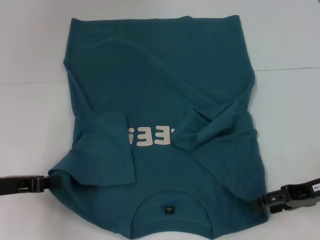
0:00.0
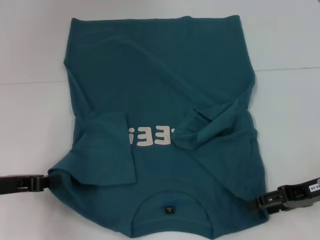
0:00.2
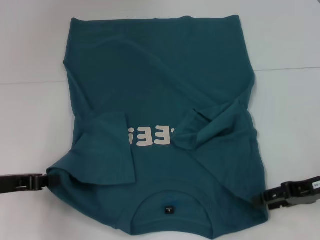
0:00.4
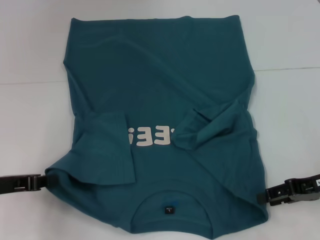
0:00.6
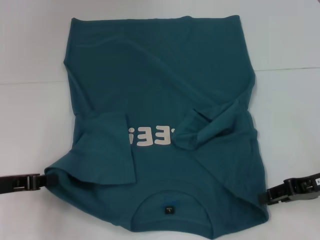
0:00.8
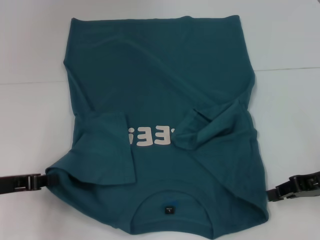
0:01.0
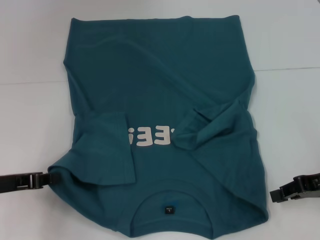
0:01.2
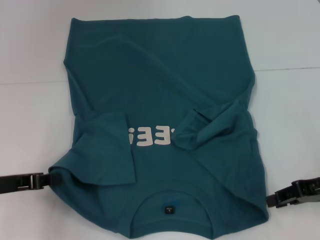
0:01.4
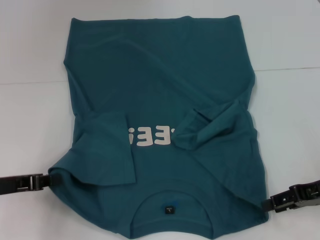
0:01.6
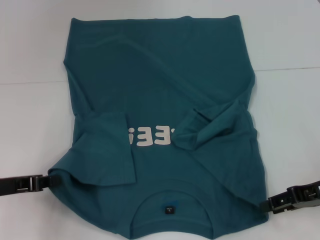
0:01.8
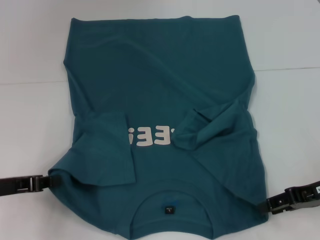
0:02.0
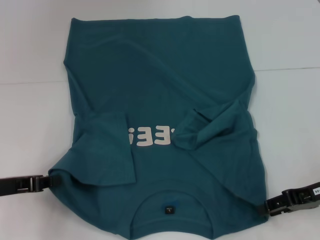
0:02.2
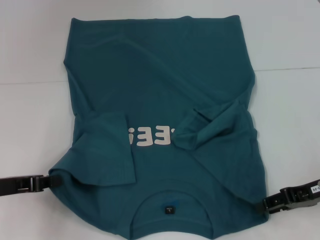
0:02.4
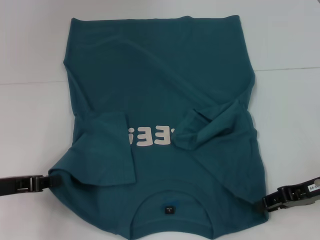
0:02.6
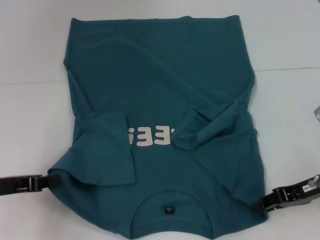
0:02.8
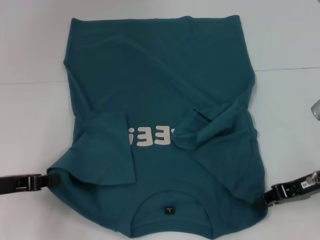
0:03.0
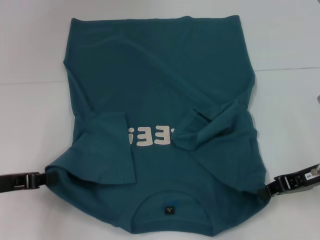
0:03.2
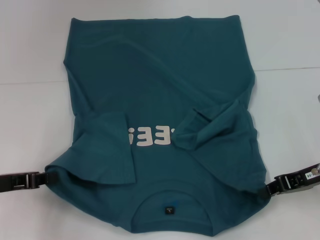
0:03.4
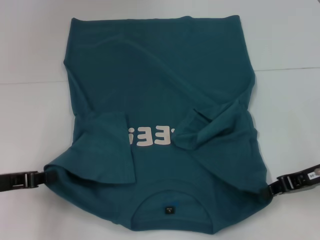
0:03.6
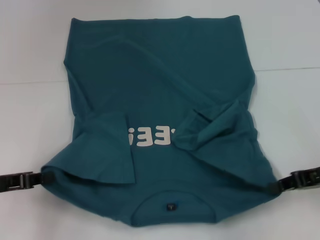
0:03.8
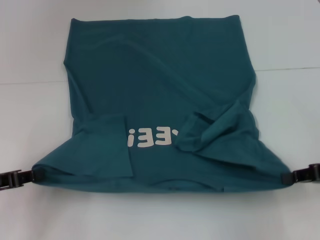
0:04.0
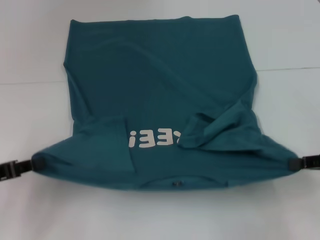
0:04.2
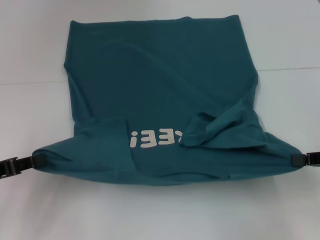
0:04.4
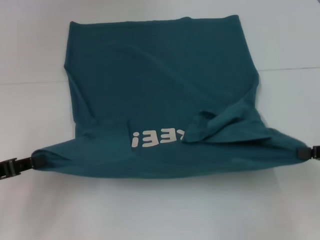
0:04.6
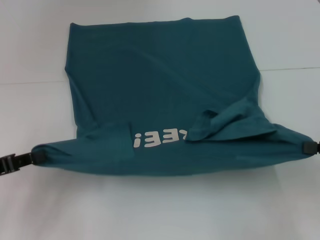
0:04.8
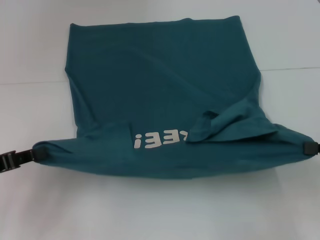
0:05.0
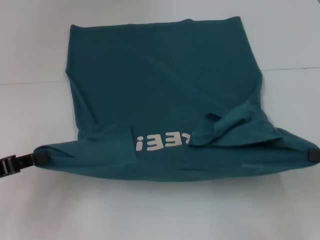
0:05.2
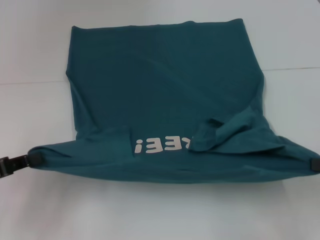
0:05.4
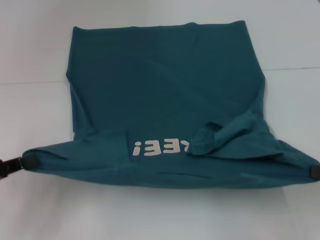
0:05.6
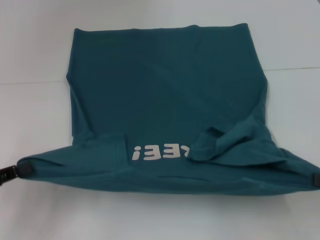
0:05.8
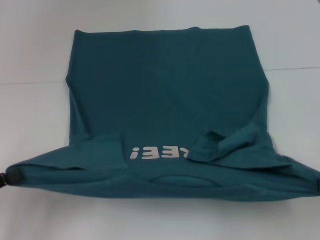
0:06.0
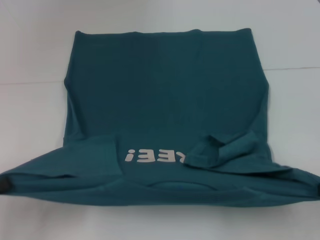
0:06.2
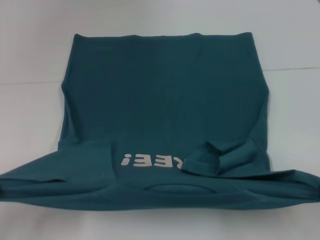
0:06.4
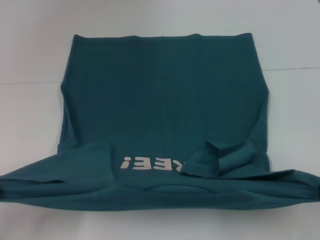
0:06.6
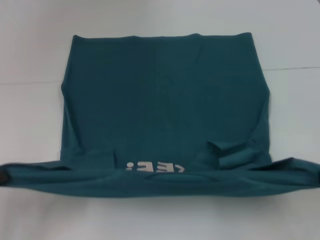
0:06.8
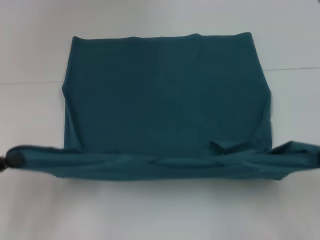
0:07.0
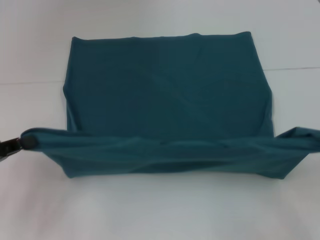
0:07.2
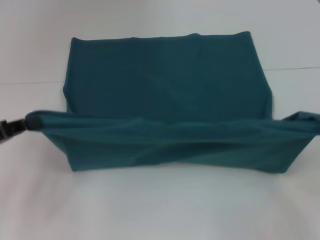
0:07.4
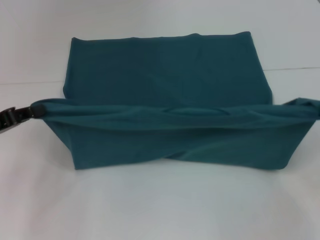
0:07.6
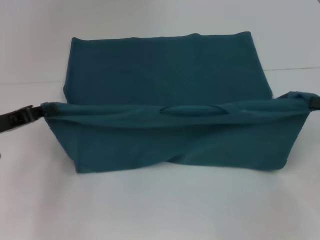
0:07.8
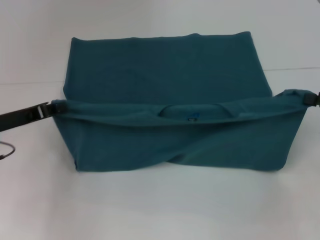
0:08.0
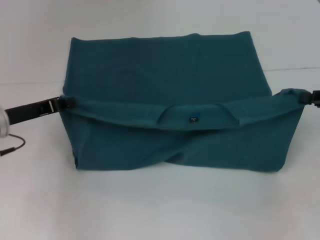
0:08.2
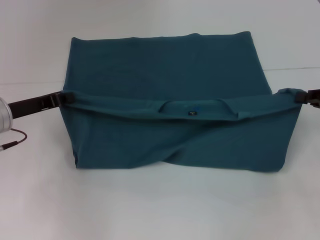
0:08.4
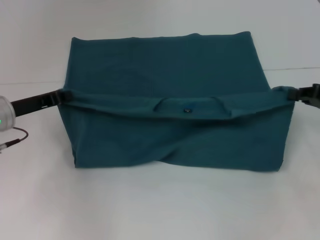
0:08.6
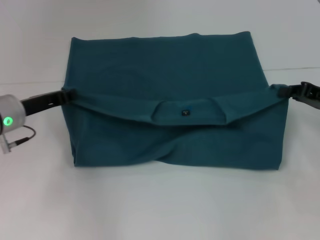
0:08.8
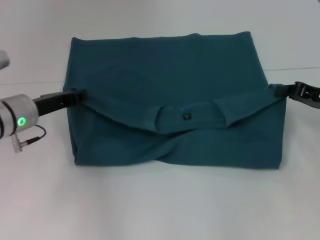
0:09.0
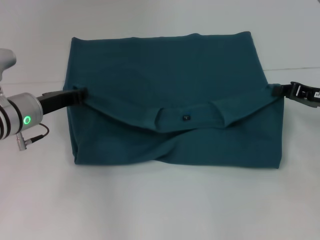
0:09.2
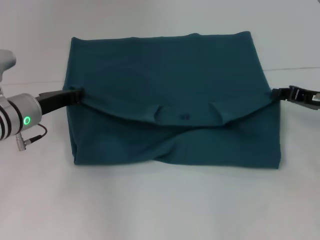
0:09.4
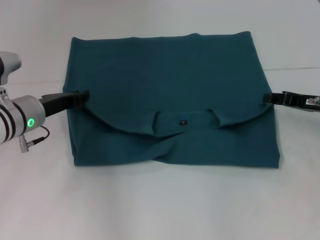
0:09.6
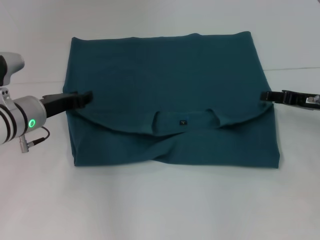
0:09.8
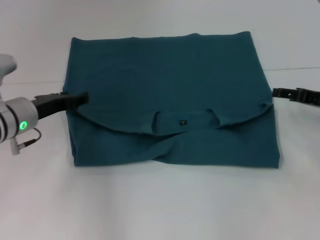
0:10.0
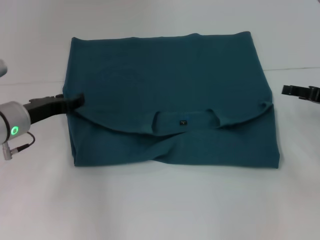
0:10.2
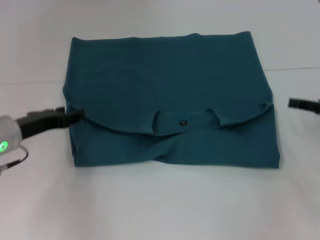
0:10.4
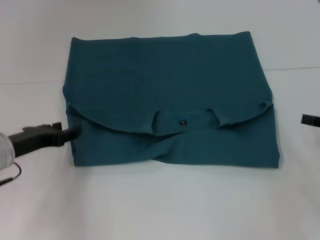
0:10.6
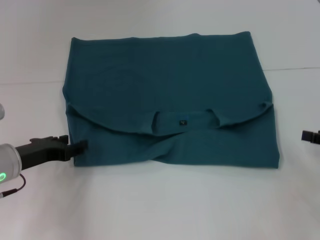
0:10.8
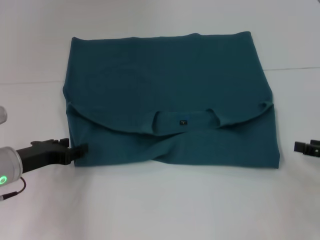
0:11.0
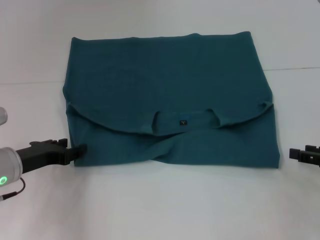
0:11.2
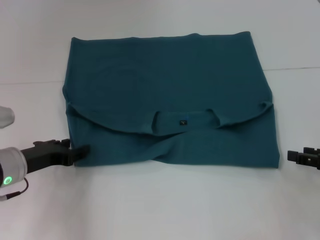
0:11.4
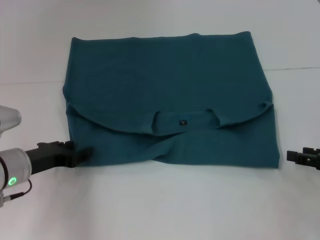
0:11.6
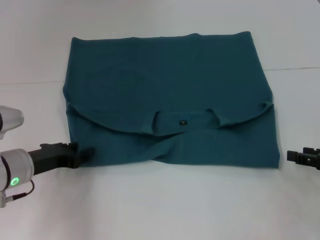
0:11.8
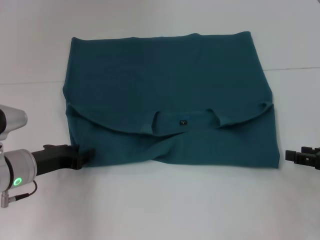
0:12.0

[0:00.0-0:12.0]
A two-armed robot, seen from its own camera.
Step, 0:00.0 to 0:03.6: Grab the bottom right corner with your right hand.
Step, 0:03.8 to 0:09.6: Fold the clothes to the left.
Step, 0:03.8 to 0:09.6: Fold the clothes to the right.
0:00.0 to 0:01.6: The right gripper closes.
0:01.6 to 0:03.0: The grippers stay close to where they were, moving slightly.
0:03.0 to 0:04.4: The right gripper heads to the right, covering about 5 cm, and closes.
0:04.4 to 0:06.0: The two grippers go some 5 cm backward.
0:06.0 to 0:07.6: Both grippers move forward, some 10 cm.
0:07.6 to 0:09.0: The left gripper moves to the right and forward, roughly 10 cm; the right gripper travels forward and to the left by roughly 10 cm.
0:09.0 to 0:10.4: The right gripper opens; the left gripper opens up.
0:10.4 to 0:12.0: The right gripper moves backward, about 5 cm.

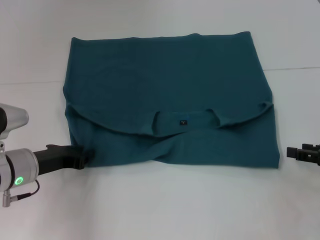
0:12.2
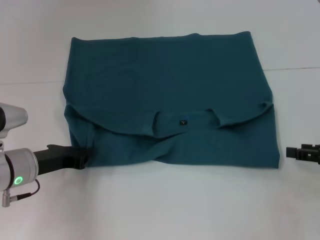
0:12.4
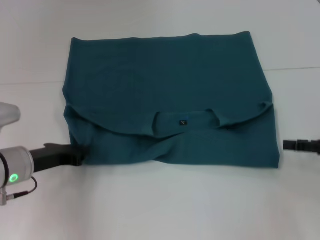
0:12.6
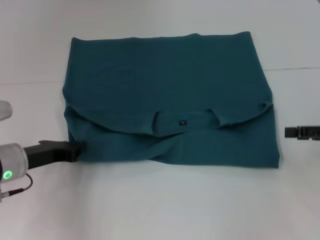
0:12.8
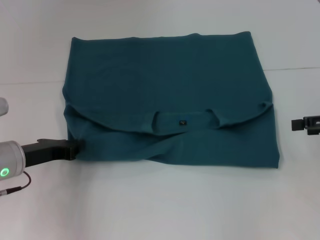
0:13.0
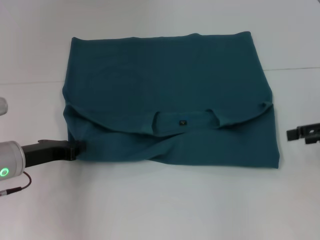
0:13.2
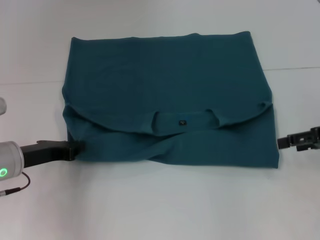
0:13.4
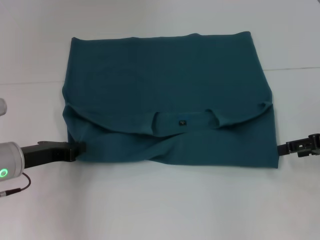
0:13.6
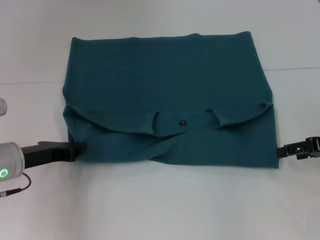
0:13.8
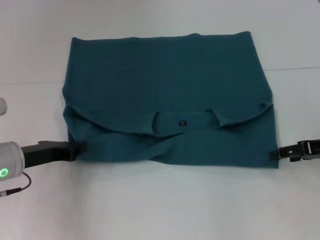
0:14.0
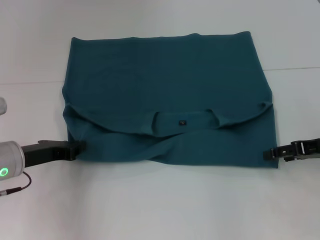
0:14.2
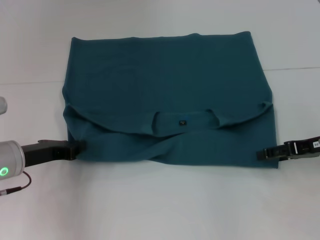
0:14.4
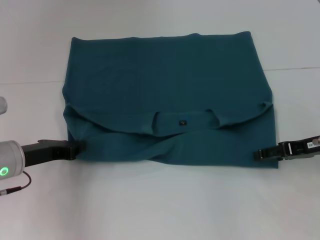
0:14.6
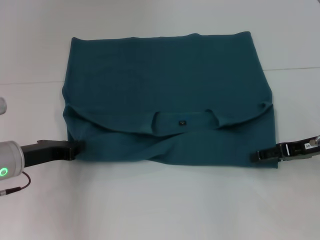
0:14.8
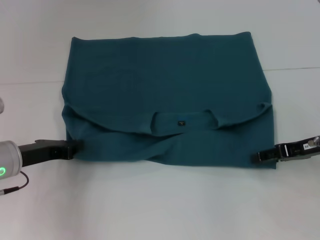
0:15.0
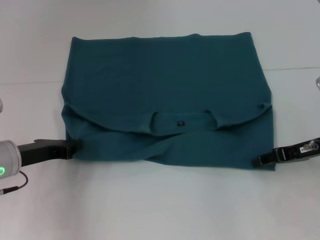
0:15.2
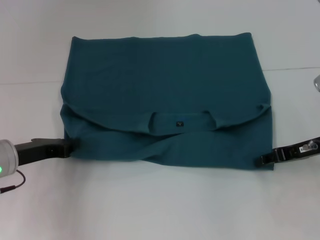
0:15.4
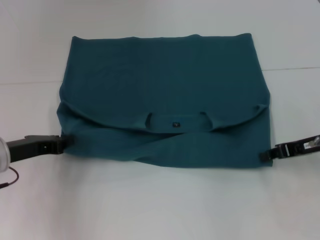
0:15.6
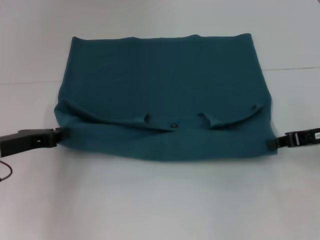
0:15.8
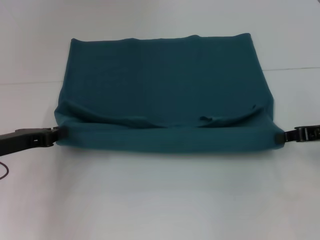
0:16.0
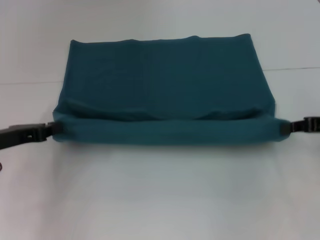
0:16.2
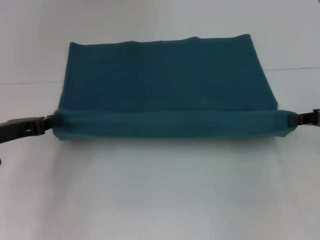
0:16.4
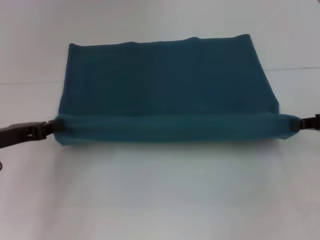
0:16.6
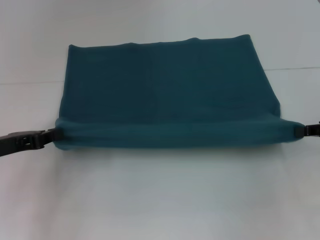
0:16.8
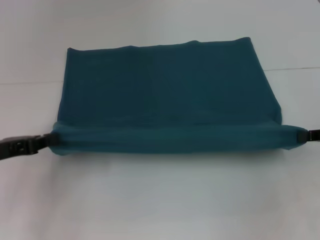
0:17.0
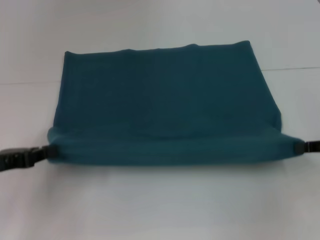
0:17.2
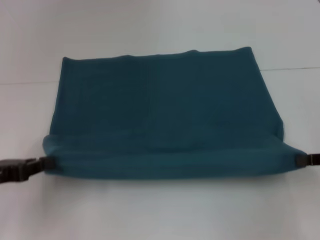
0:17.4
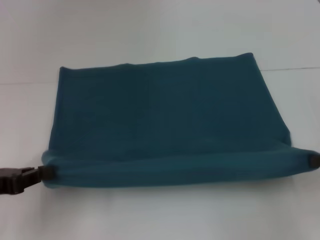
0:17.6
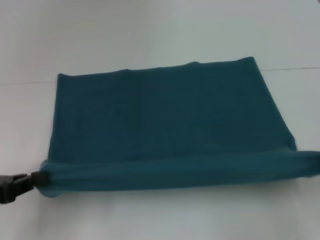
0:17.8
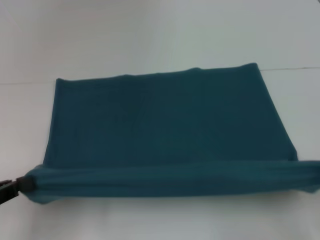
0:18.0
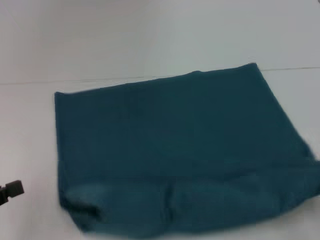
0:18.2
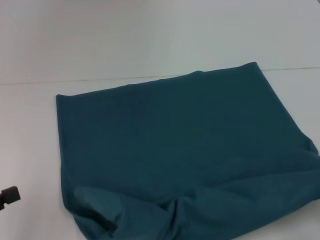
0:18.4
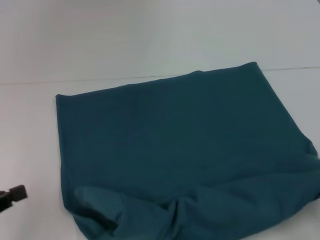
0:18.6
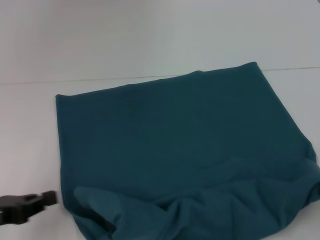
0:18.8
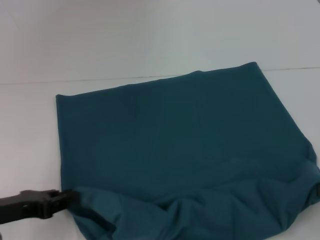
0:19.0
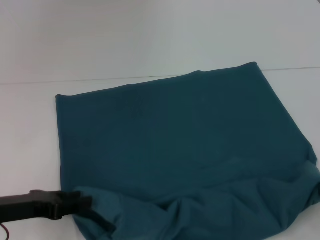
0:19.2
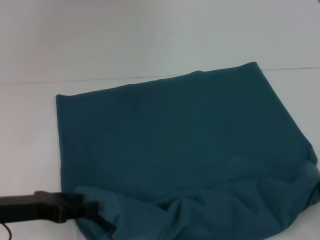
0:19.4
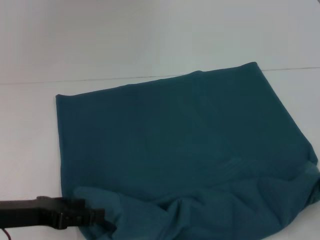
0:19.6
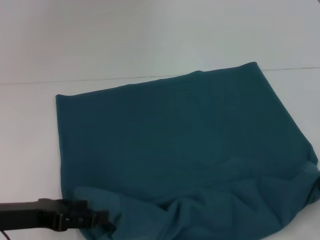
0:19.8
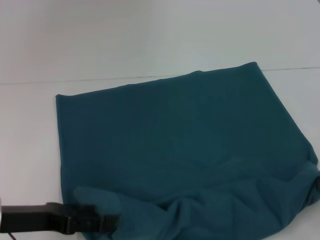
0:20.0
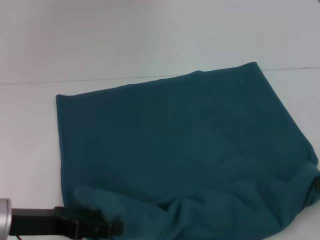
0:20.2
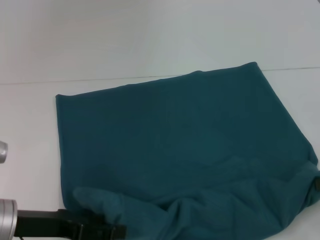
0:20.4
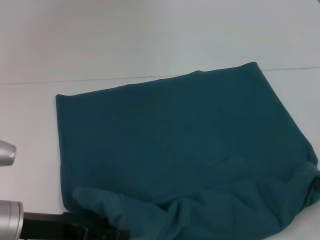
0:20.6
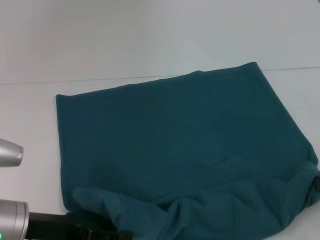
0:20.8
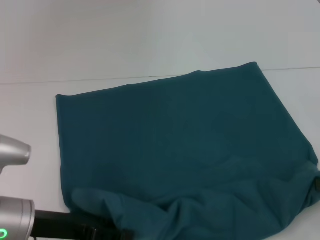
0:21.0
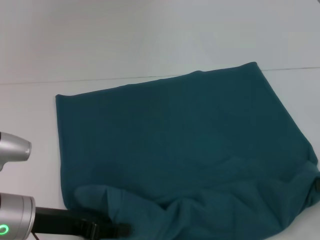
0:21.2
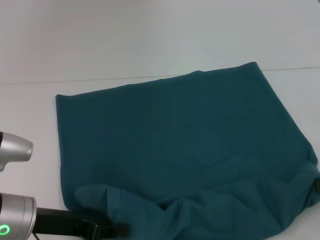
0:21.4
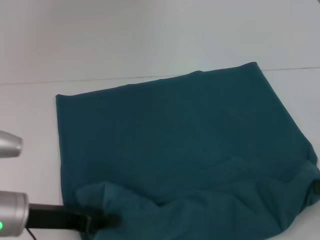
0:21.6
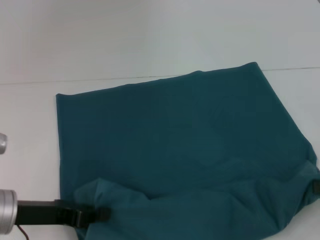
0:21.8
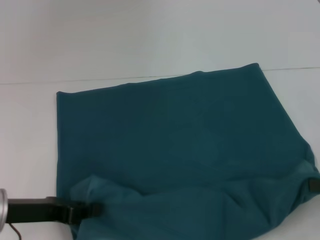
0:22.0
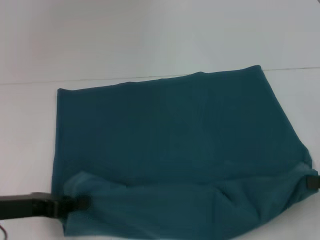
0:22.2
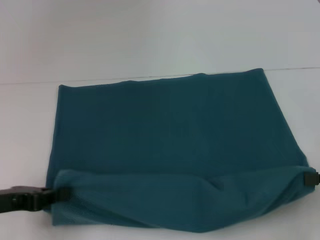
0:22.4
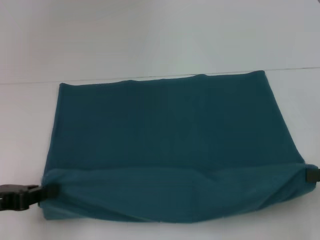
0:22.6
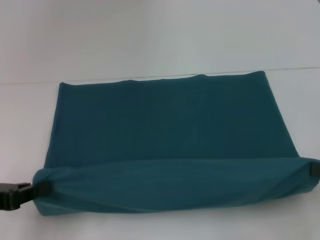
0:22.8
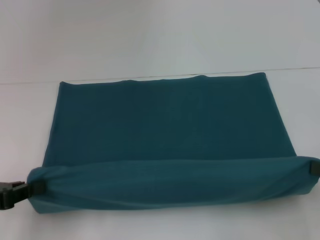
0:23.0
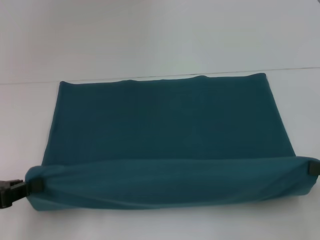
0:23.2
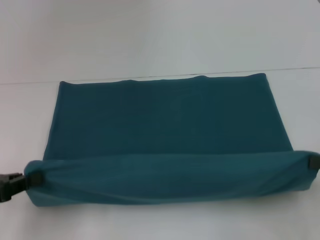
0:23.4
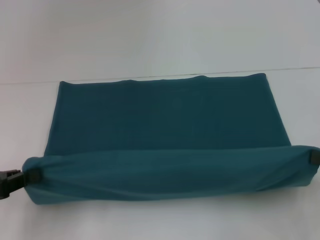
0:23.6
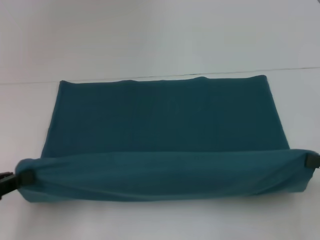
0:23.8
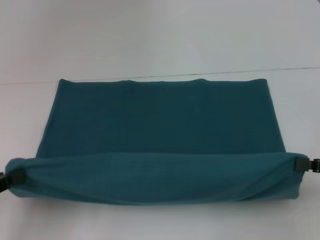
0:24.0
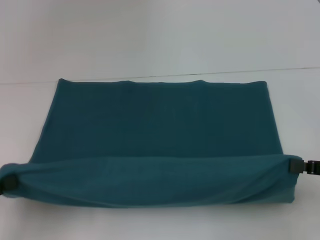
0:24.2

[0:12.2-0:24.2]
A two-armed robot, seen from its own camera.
Step, 0:12.2 to 0:22.6: Pull the clothes with your left hand.
Step, 0:12.2 to 0:22.6: Pull the clothes with your right hand.
0:12.2 to 0:13.8: The left gripper closes up, while the right gripper is displaced forward by about 5 cm.
0:13.8 to 0:15.2: The right gripper moves some 5 cm.
0:15.2 to 0:16.6: The left gripper moves about 5 cm, while the right gripper heads to the right, covering roughly 5 cm, and closes.
0:16.6 to 0:18.2: Both grippers travel together backward, about 15 cm.
0:18.2 to 0:19.8: The left gripper goes roughly 10 cm to the right and forward, and opens up.
0:19.8 to 0:21.2: The grippers make only small movements.
0:21.2 to 0:22.6: The left gripper heads to the left, covering roughly 10 cm, and closes its fingers.
0:22.6 to 0:24.2: The left gripper moves roughly 5 cm.
